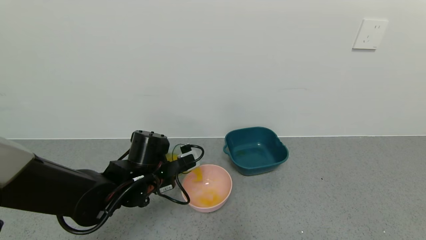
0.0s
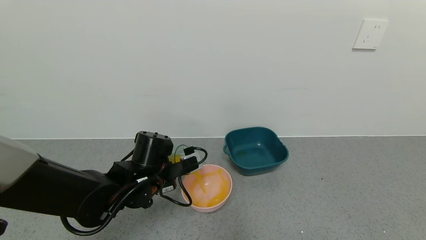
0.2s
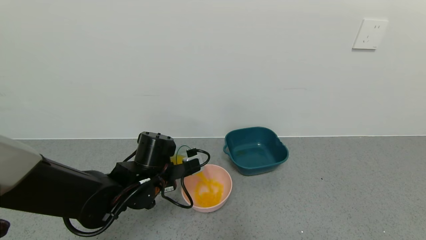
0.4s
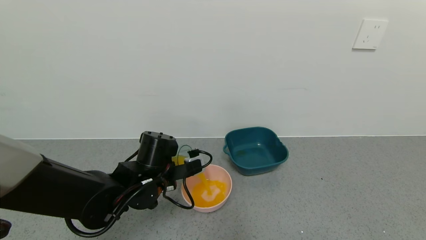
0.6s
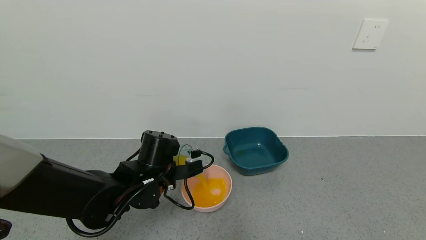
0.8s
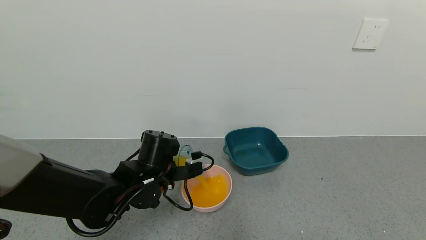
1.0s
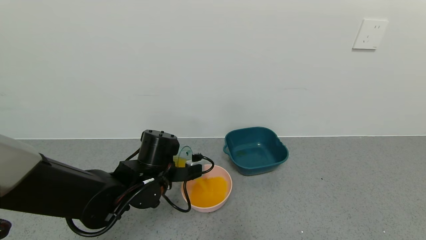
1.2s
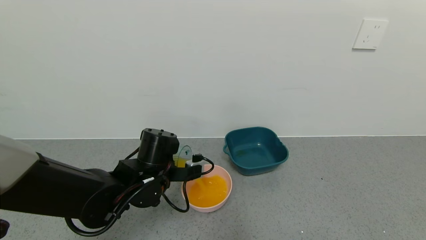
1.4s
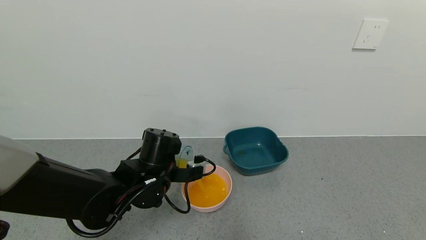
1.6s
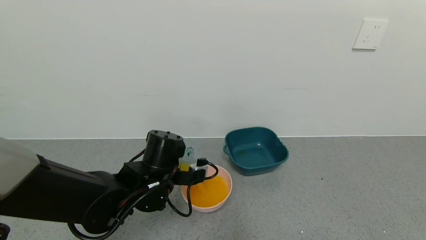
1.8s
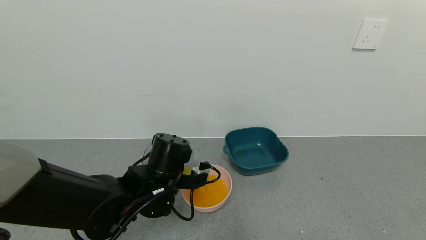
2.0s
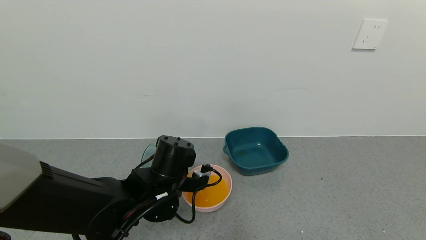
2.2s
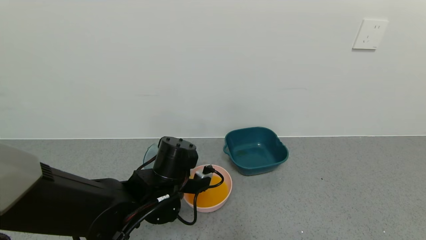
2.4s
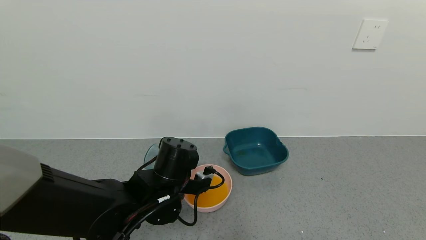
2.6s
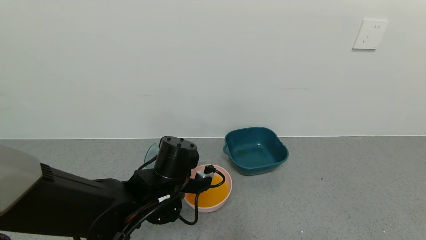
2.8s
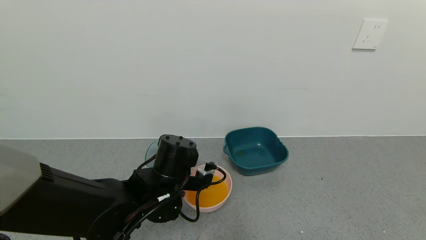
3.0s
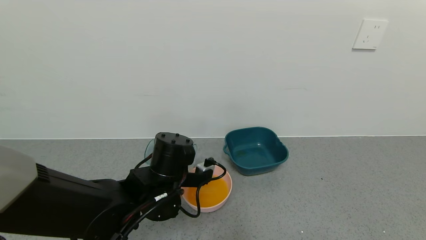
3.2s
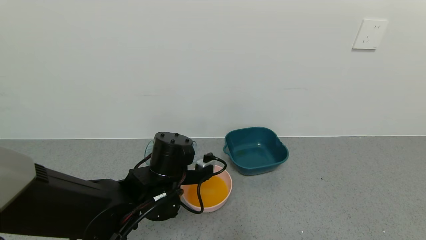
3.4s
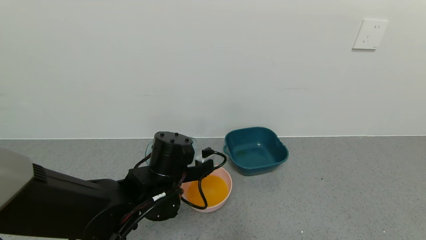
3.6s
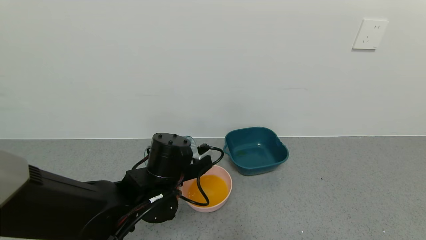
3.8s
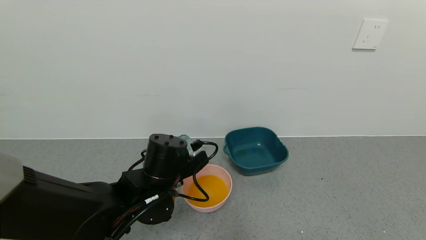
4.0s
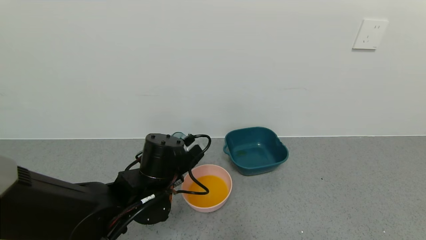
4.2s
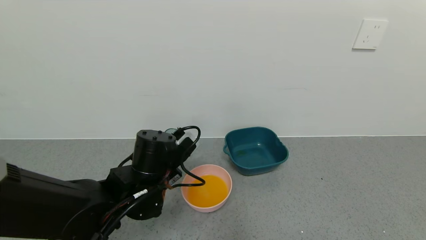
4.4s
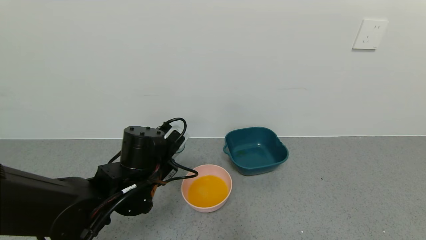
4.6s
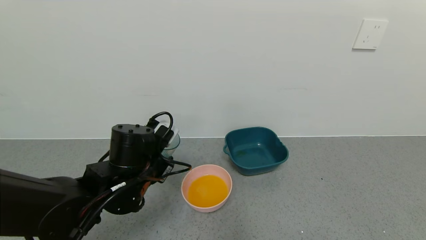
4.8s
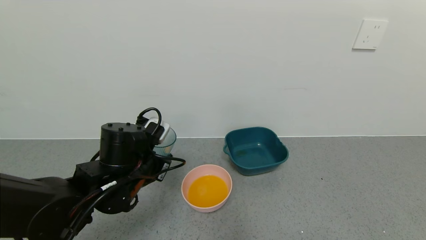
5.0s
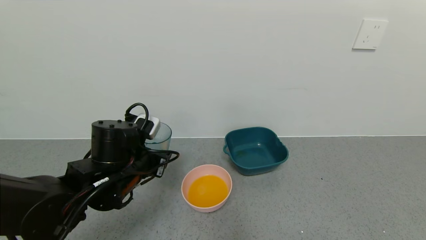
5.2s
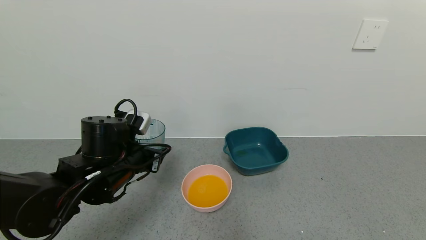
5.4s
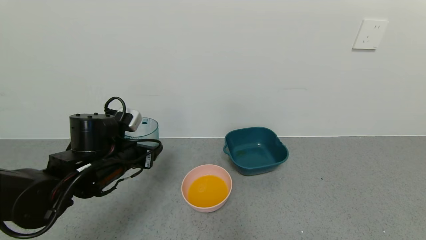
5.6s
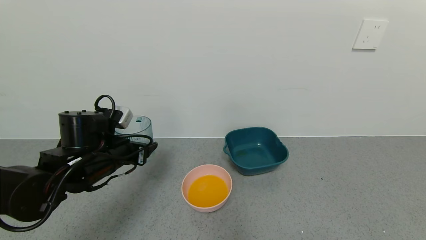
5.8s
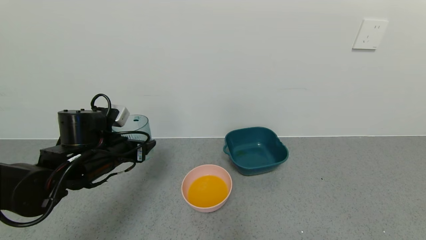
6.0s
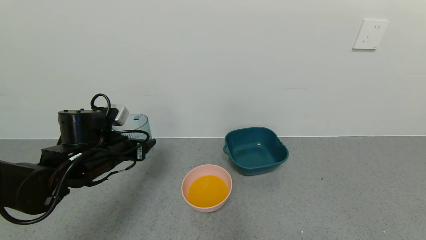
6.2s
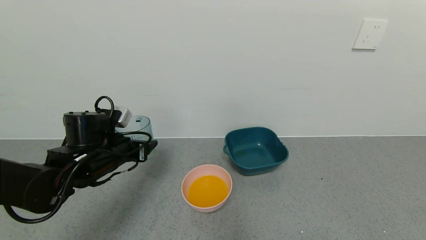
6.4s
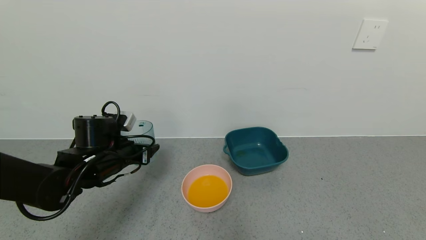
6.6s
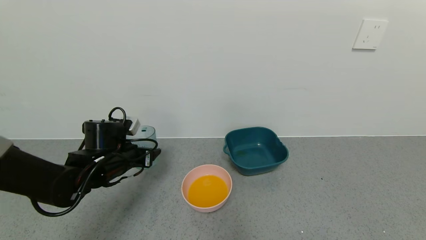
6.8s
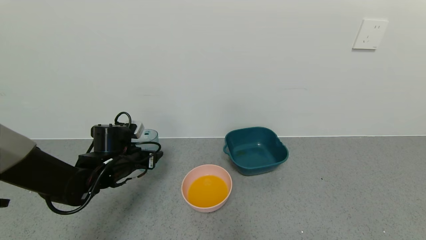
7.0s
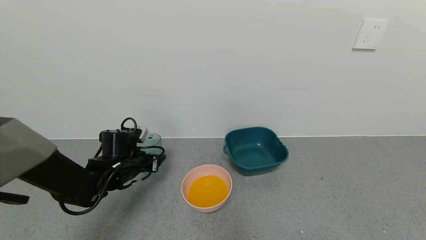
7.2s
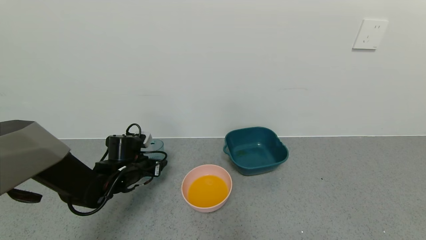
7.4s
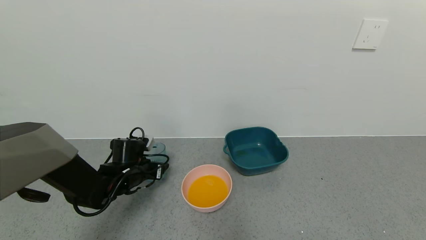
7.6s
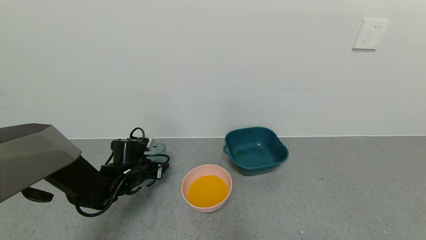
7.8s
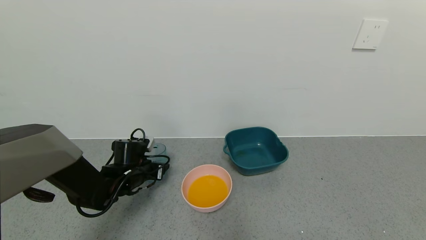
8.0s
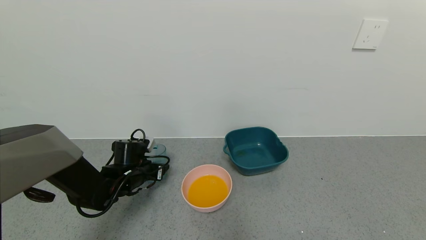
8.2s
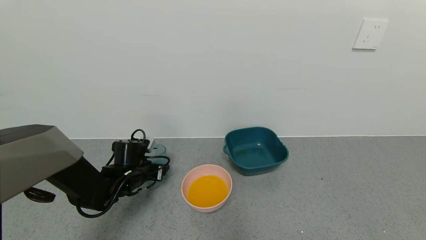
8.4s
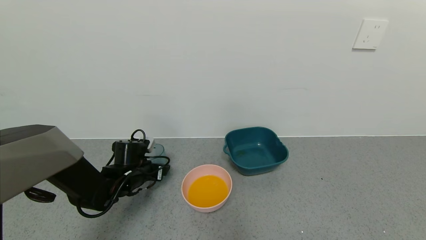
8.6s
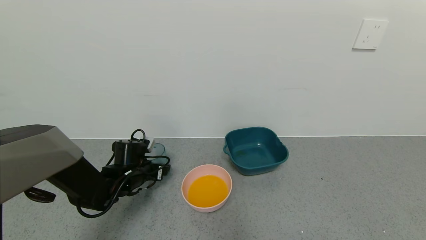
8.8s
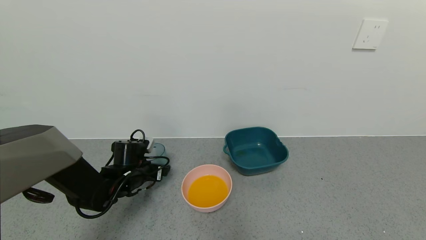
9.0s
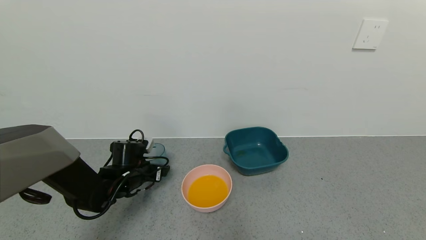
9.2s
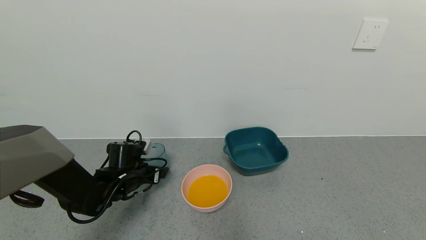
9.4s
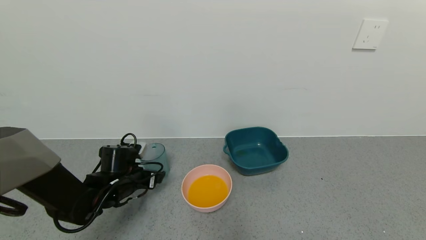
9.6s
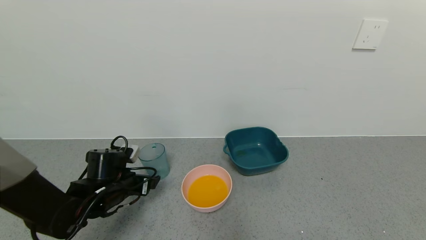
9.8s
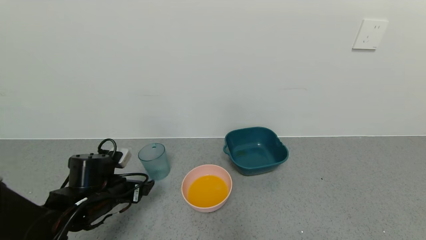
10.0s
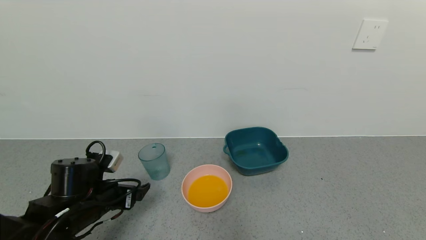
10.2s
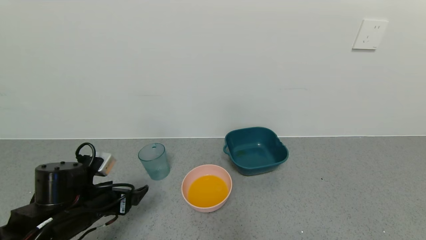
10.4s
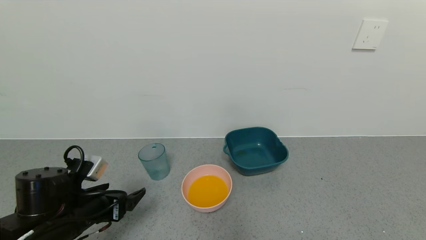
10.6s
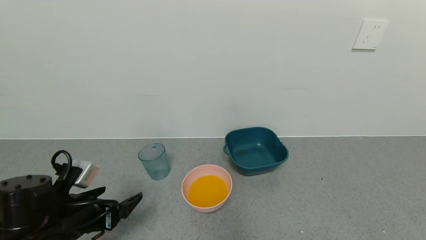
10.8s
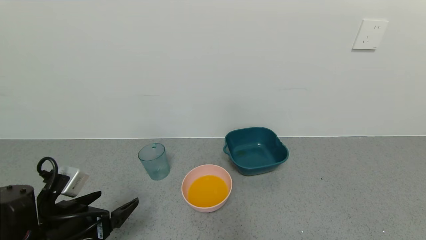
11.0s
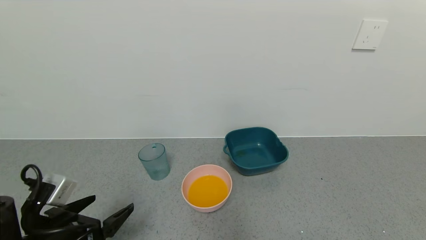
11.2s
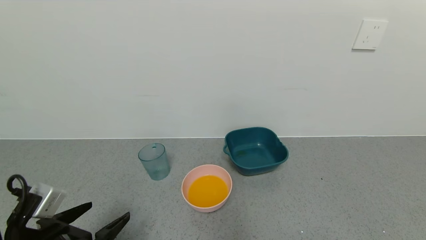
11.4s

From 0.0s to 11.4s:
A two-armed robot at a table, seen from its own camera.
Task of the whole recording: use a gripper to pick up the cup and pour the liquid into a bowl or tray.
Step, from 0.0s to 3.0s: Pour the orange juice into the pink bowl with the left gripper.
Step, from 3.2s to 9.8s: Place the glass cup with the left gripper.
From 1.4s to 2.8s: The grippers make only small movements.
From 4.2s to 5.6s: The left gripper moves to the left, approximately 10 cm.
From 5.6s to 7.2s: The left gripper goes roughly 10 cm downward and forward.
From 7.2s to 8.6s: The left gripper opens its fingers.
From 8.6s to 10.0s: The left gripper heads backward, covering some 10 cm, and opens.
From 10.0s to 11.4s: The left gripper is displaced backward by some 15 cm.

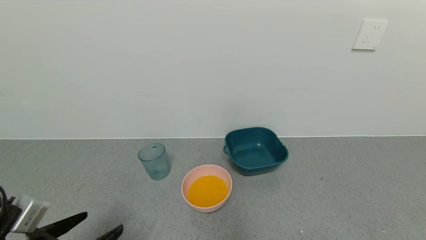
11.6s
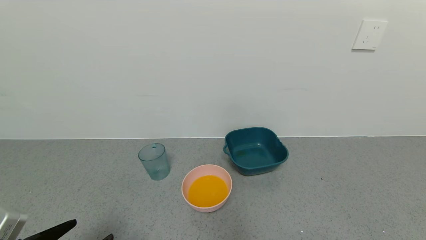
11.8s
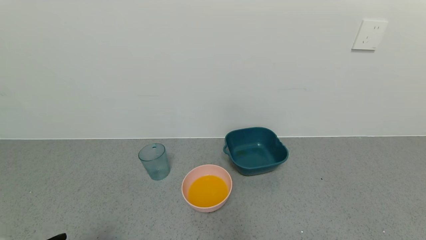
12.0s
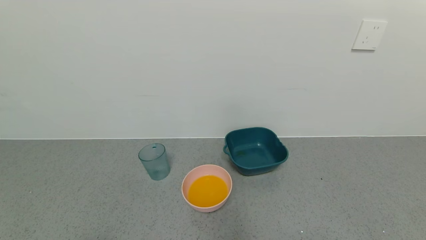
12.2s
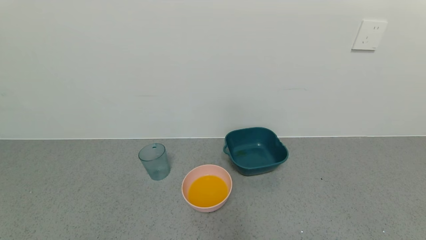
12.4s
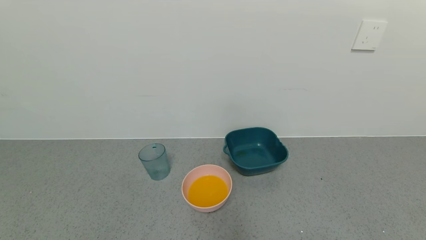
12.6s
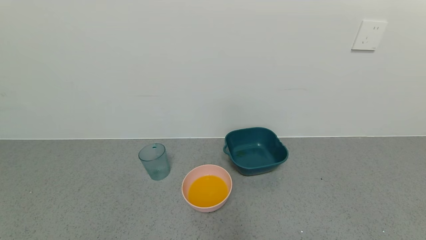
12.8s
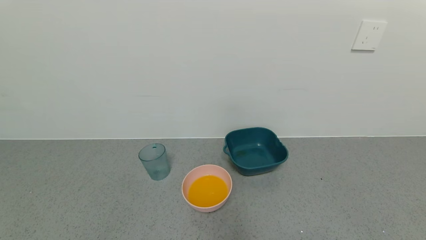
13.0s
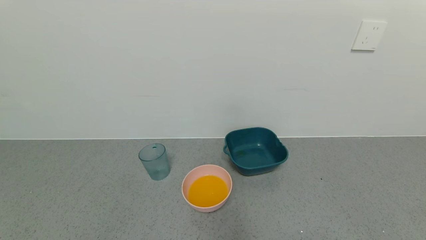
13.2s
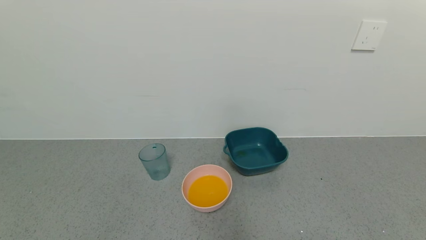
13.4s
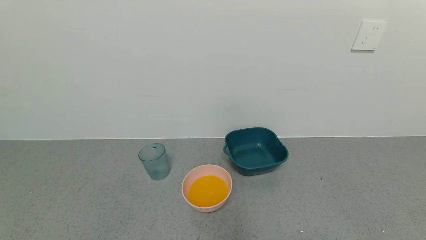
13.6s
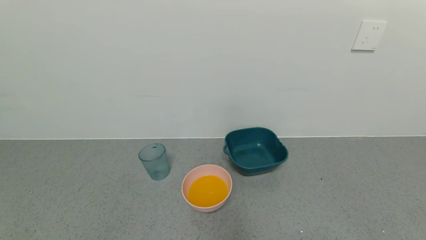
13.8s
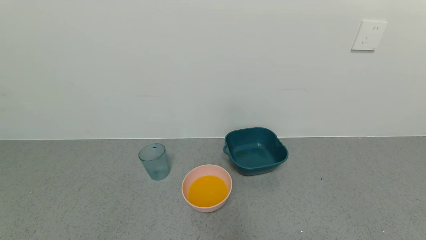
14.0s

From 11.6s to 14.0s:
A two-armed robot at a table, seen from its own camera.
Task of the whole recording: use a gripper to pick up the cup and pour the liquid into a bowl or tray.
From 11.6s to 12.8s: The left gripper moves backward, roughly 10 cm.
